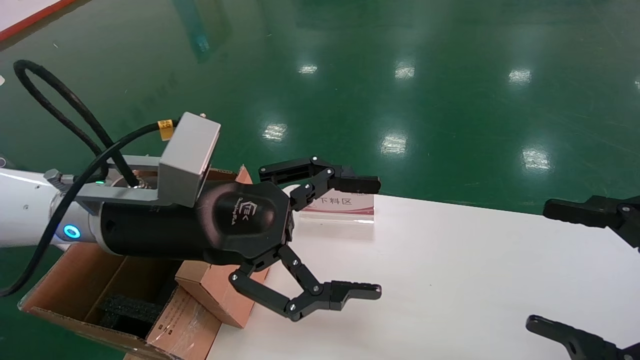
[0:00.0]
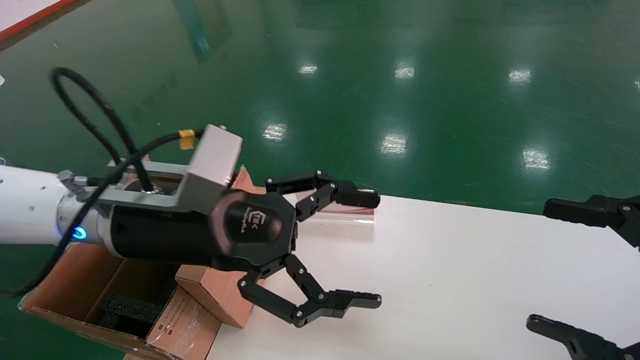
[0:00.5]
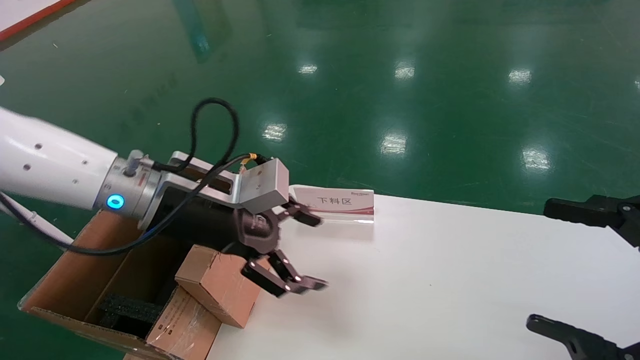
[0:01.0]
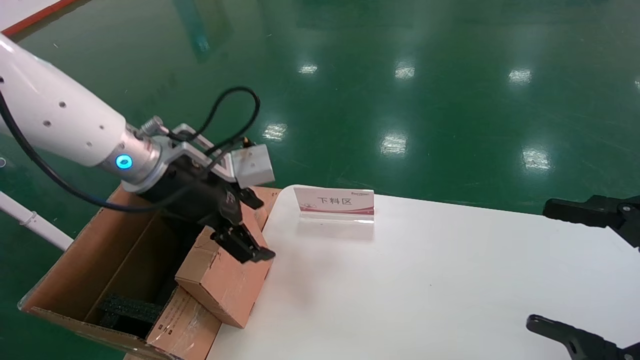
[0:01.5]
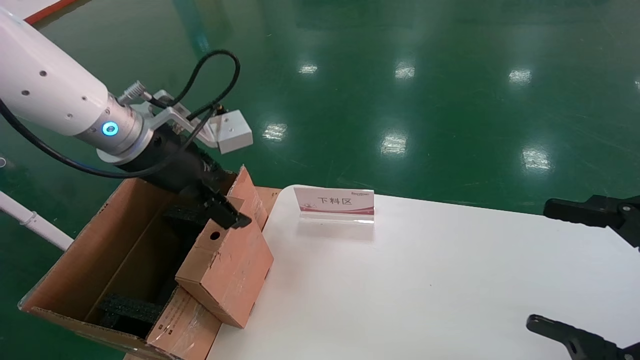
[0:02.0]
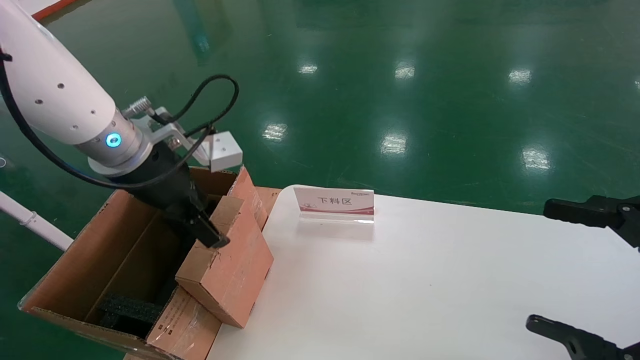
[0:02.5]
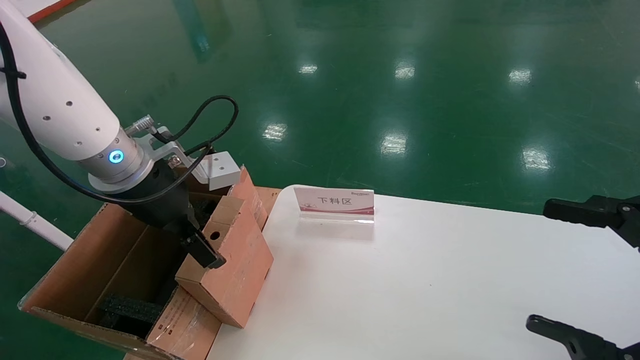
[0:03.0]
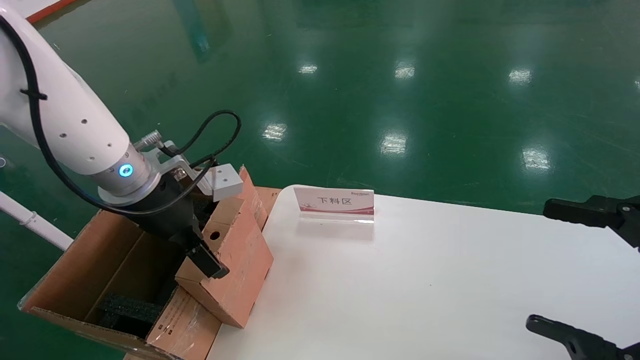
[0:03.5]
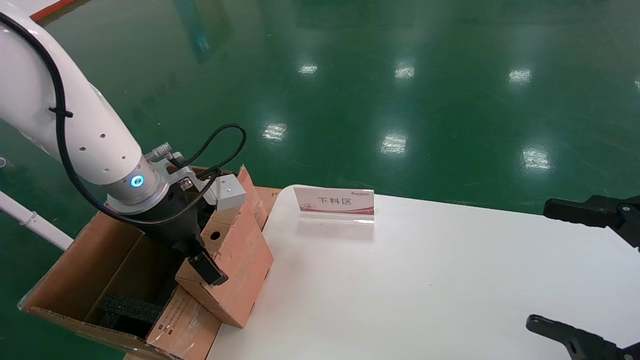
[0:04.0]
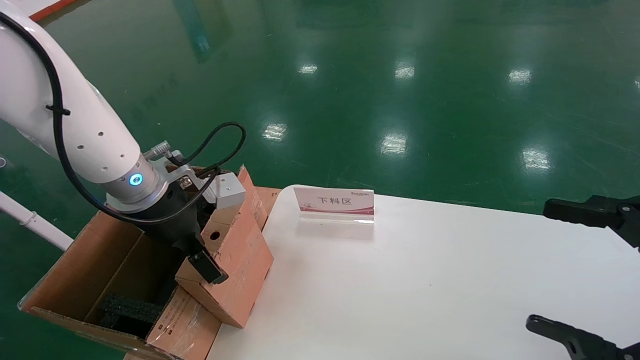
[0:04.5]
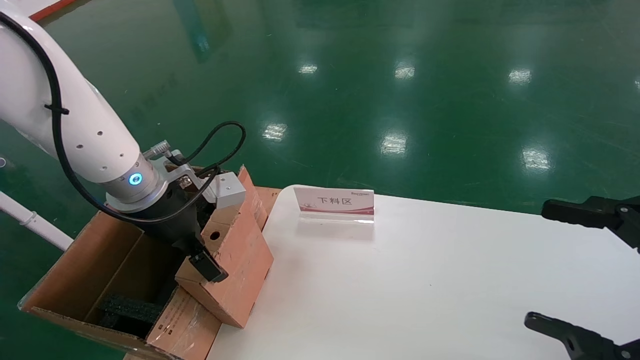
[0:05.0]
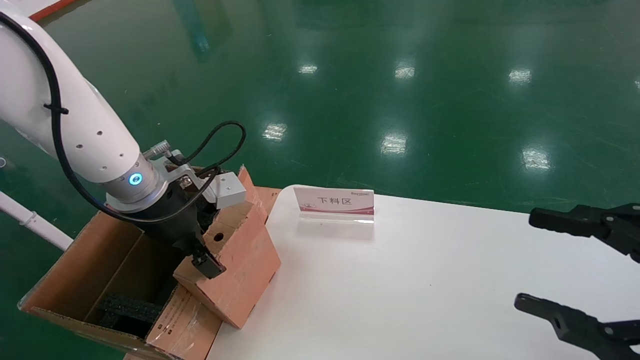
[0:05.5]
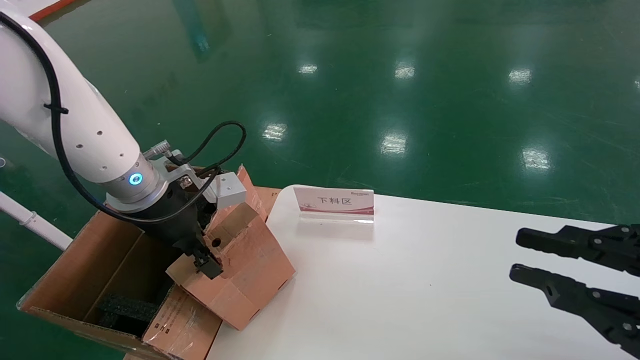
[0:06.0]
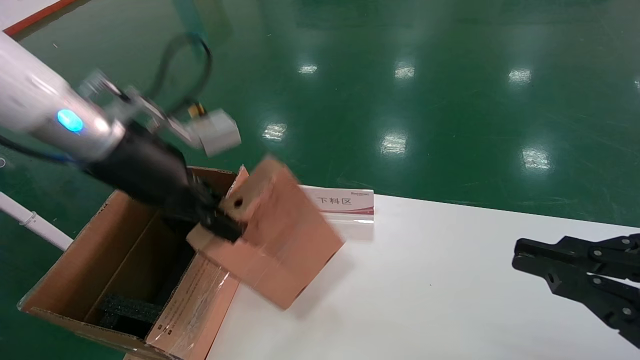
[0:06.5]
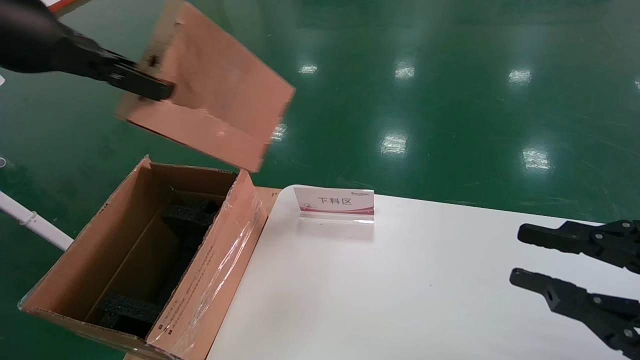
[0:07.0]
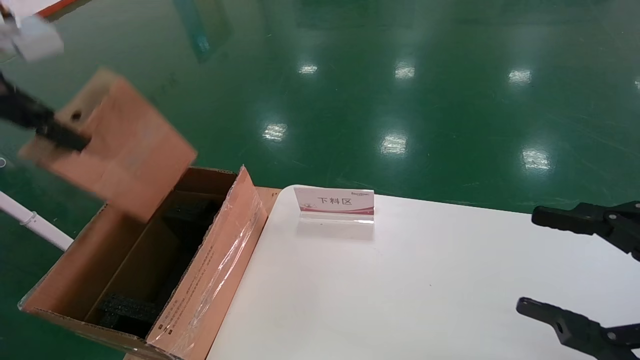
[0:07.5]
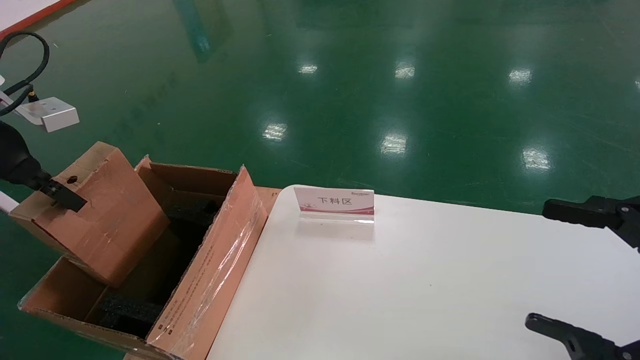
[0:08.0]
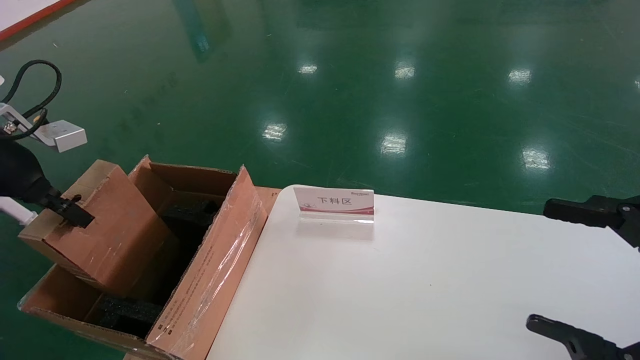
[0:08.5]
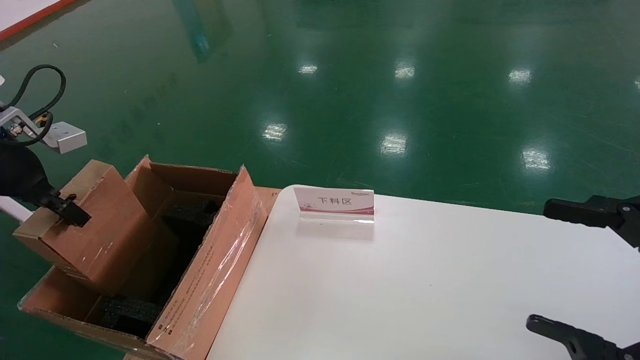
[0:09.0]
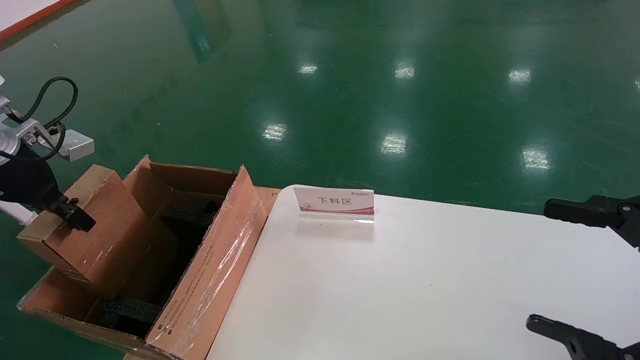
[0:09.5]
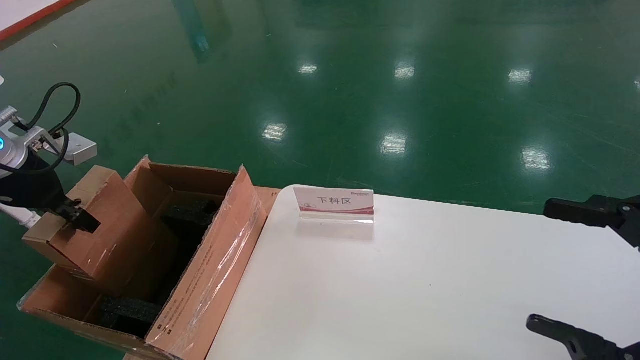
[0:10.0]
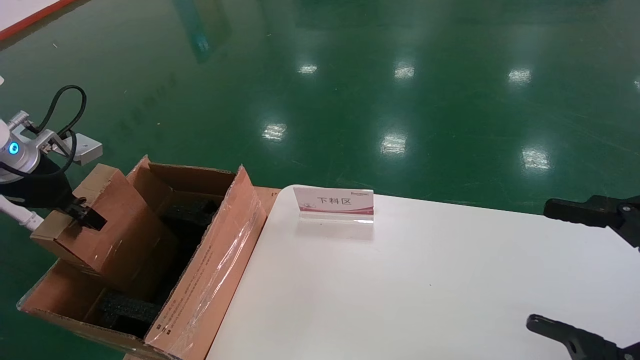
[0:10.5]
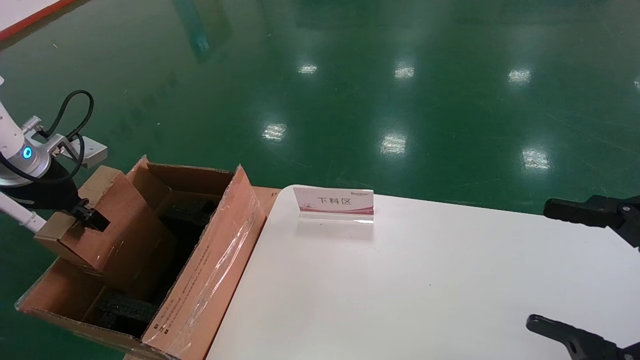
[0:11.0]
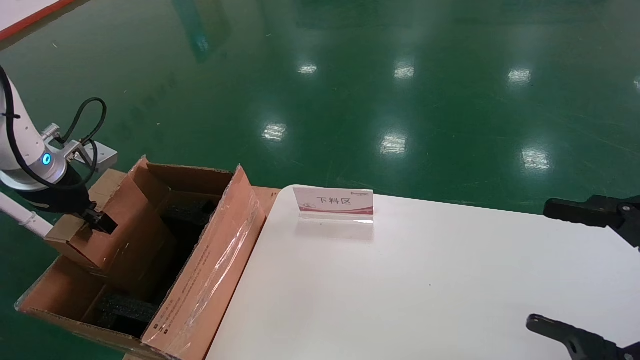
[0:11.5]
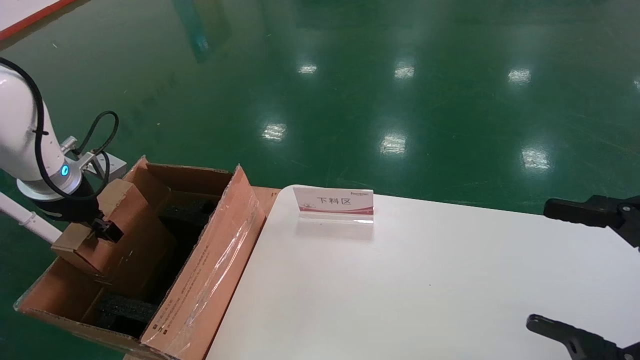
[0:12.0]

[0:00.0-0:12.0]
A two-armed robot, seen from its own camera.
Task of the whole recording: pick up the small cardboard box and load it into the large cardboard box.
Step, 0:00.5 to 0:05.0: Pick up the mouse and power cord box.
0:00.0 to 0:02.0: The left gripper shifts approximately 10 cm forward and to the left.
0:02.0 to 0:04.0: The left gripper moves downward, some 5 cm.
0:04.0 to 0:06.0: The right gripper closes its fingers; the left gripper closes.
0:06.0 to 0:08.0: The left gripper heads to the left and upward, covering some 20 cm. Meanwhile the right gripper opens its fingers.
0:08.0 to 0:10.0: The left gripper moves downward, roughly 5 cm.
0:10.0 to 0:12.0: The left gripper heads downward, covering some 5 cm.

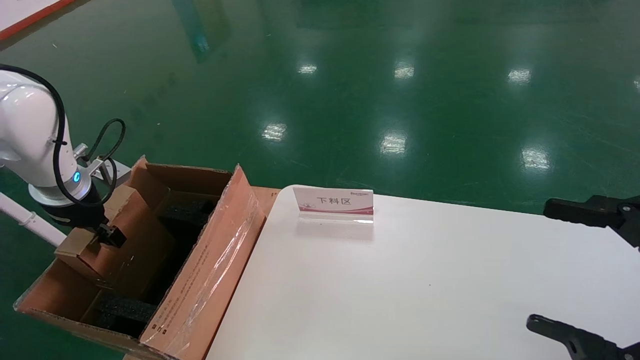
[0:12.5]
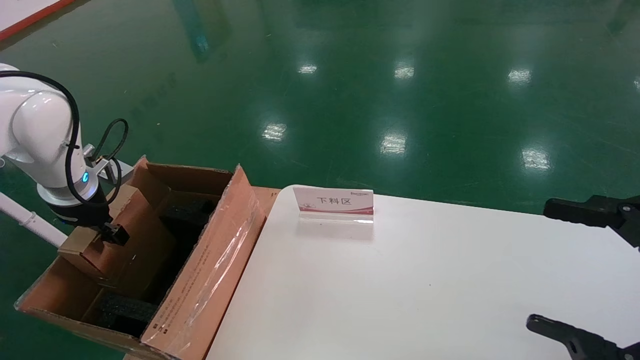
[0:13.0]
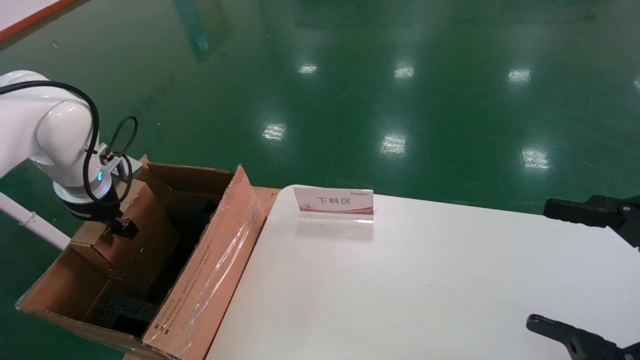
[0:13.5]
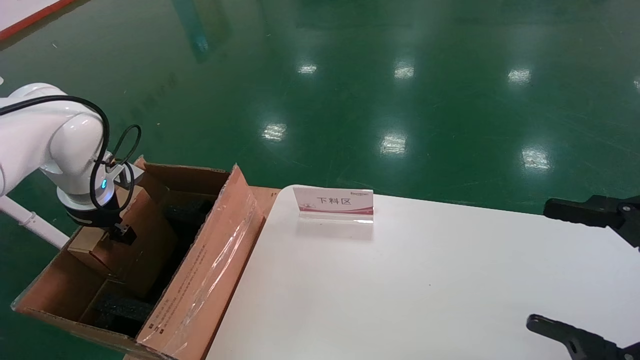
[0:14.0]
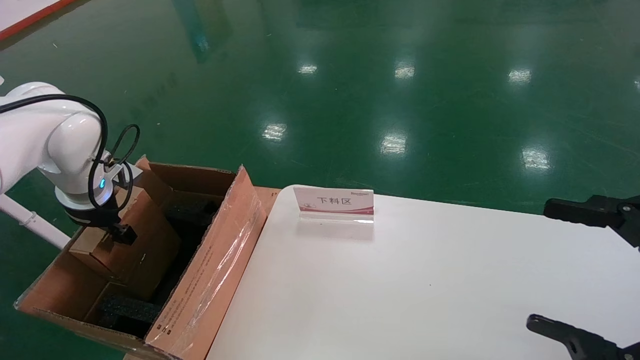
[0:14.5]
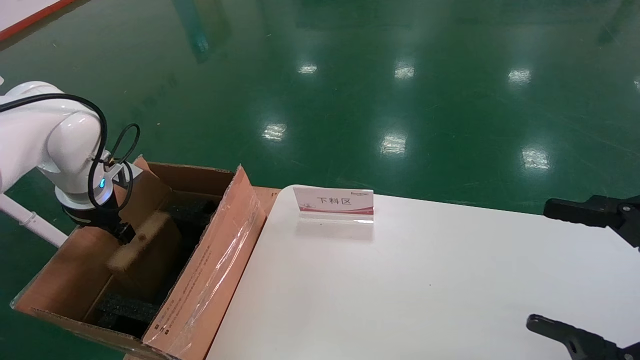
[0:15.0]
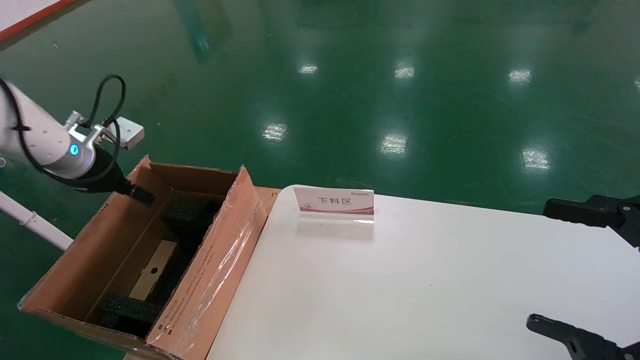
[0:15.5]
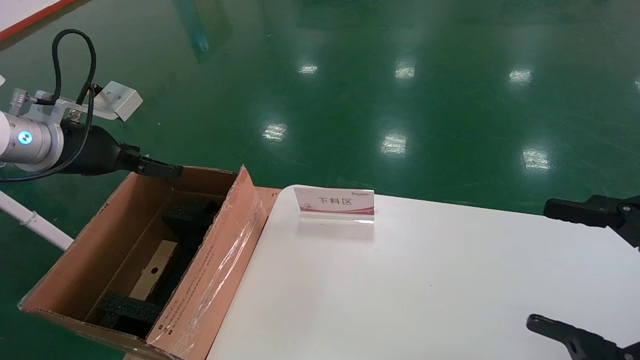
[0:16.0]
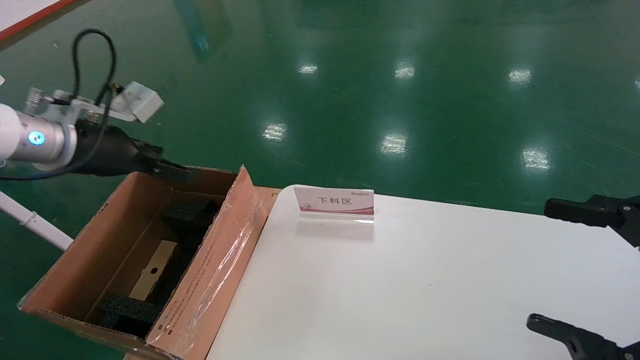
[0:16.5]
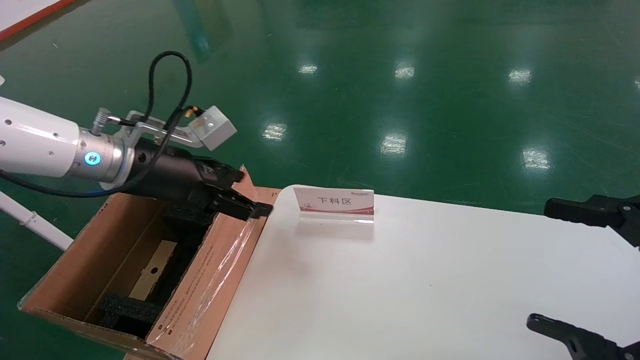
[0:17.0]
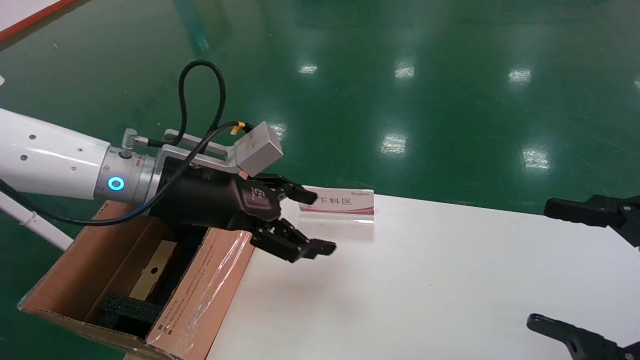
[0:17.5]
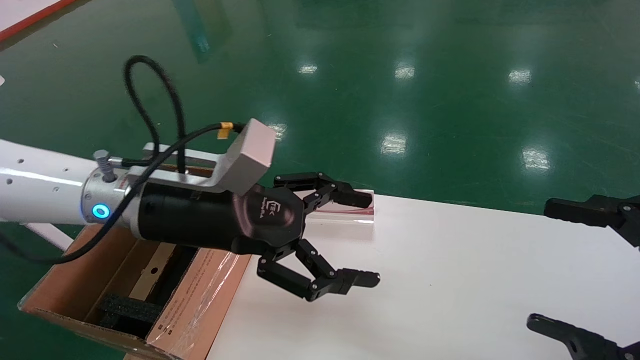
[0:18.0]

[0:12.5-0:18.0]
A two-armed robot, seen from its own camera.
Task of the whole recording: pick up the small cardboard box and load it into the large cardboard box.
Step, 0:12.5 to 0:14.5: Place the mouse and power cord box into the case.
0:12.5 to 0:14.5: The grippers make only small movements.
0:14.5 to 0:16.0: The left gripper heads upward and backward, covering roughly 10 cm, and opens.
0:16.0 to 0:18.0: The left gripper travels to the right by about 20 cm.
